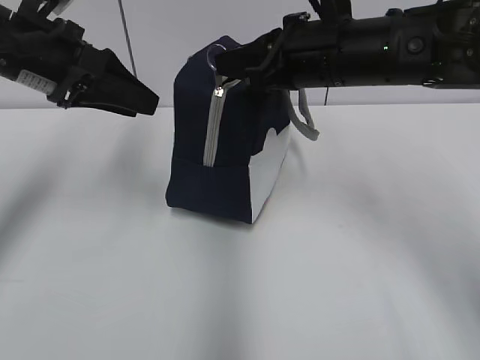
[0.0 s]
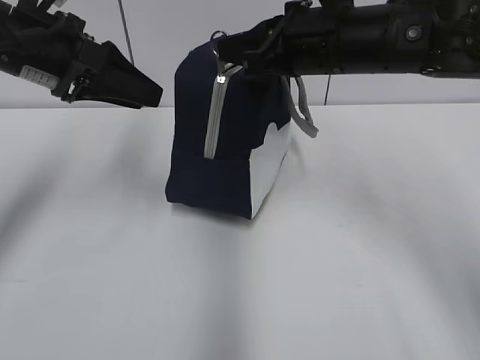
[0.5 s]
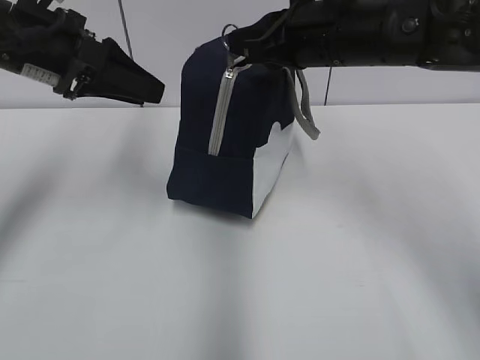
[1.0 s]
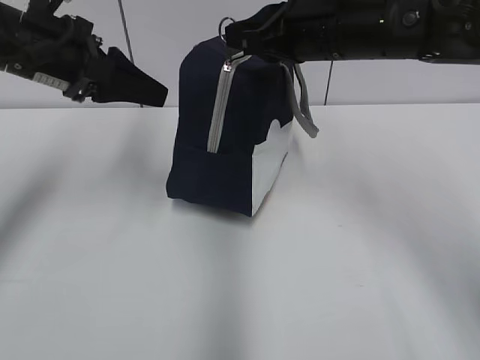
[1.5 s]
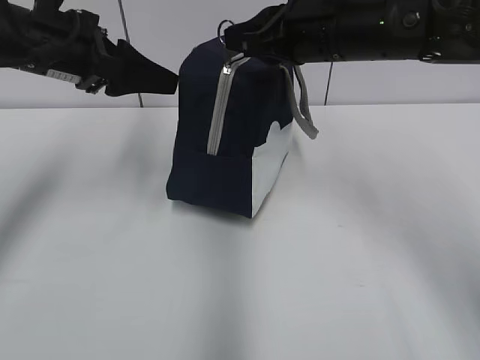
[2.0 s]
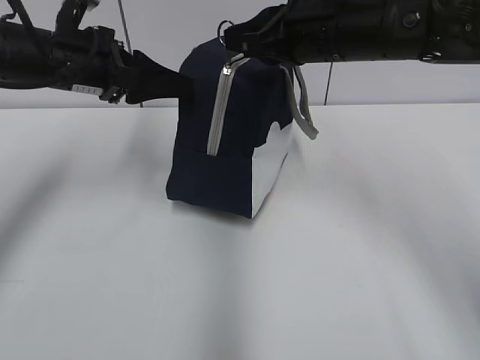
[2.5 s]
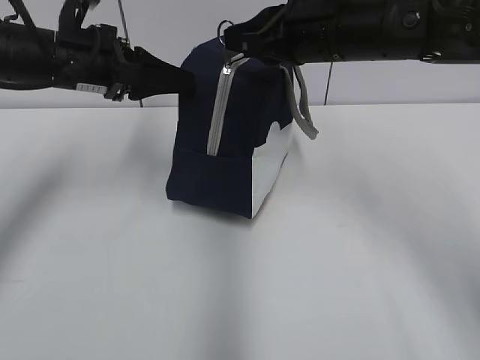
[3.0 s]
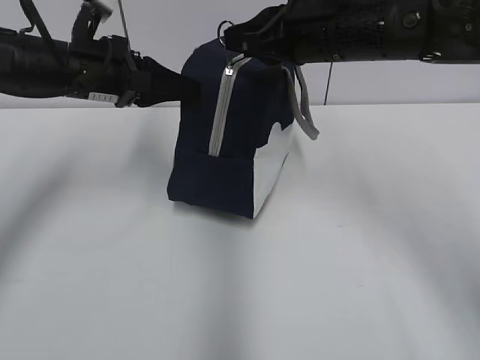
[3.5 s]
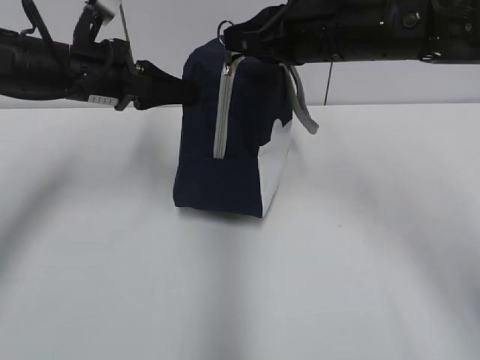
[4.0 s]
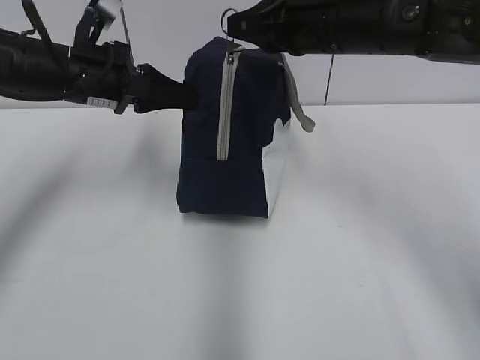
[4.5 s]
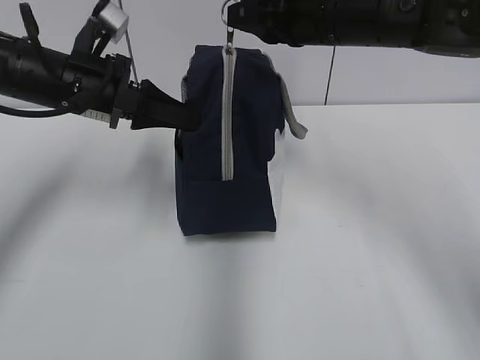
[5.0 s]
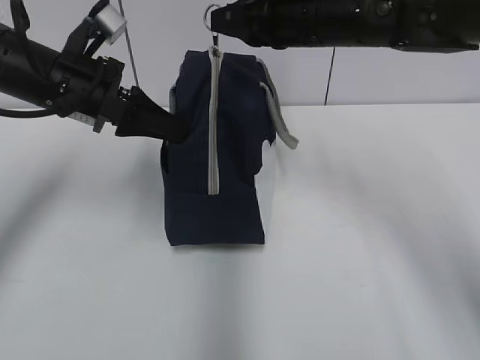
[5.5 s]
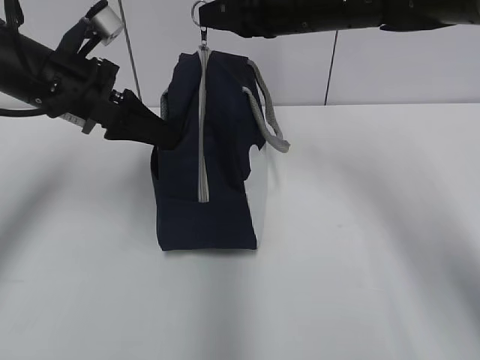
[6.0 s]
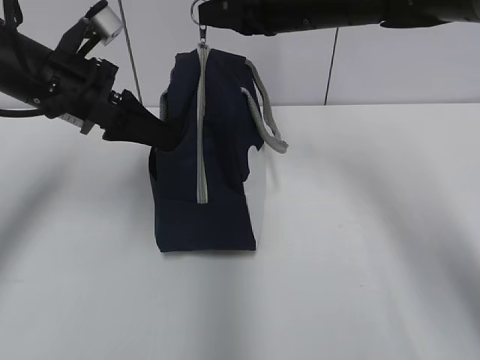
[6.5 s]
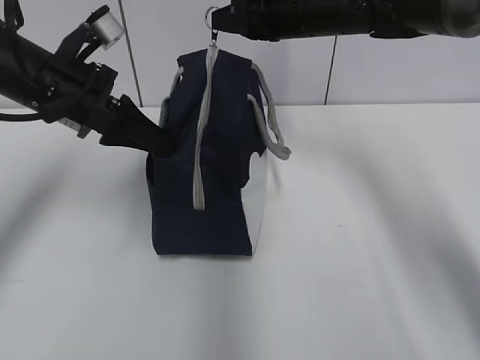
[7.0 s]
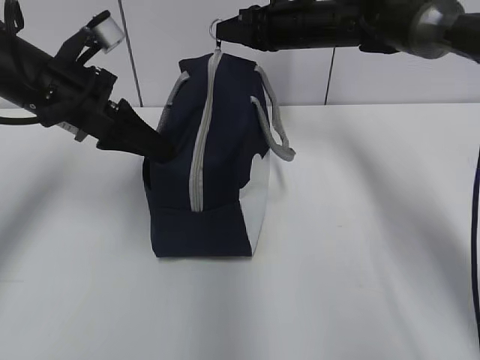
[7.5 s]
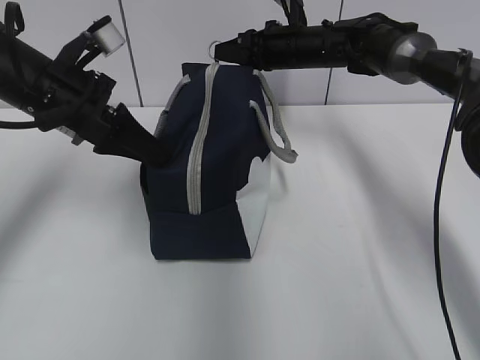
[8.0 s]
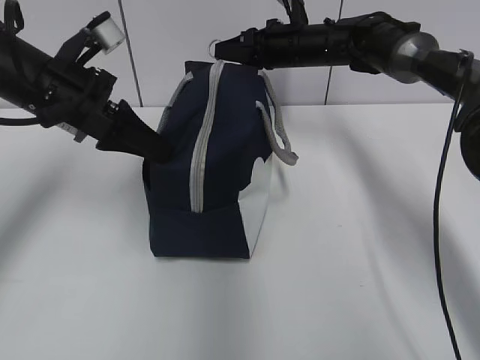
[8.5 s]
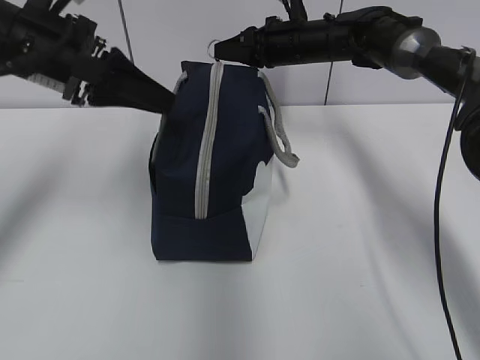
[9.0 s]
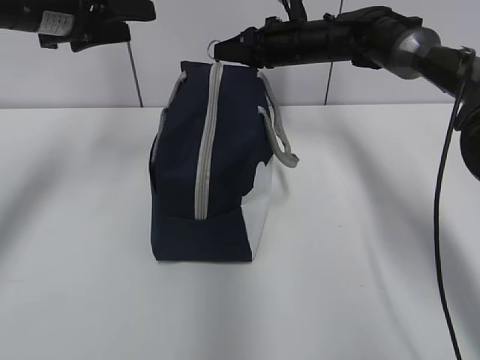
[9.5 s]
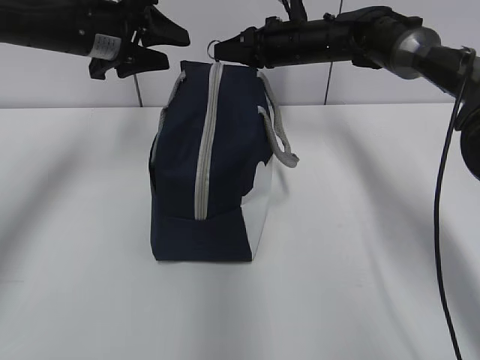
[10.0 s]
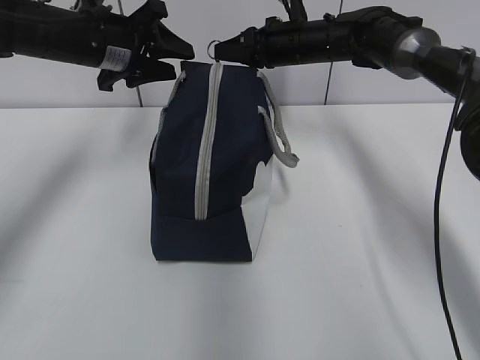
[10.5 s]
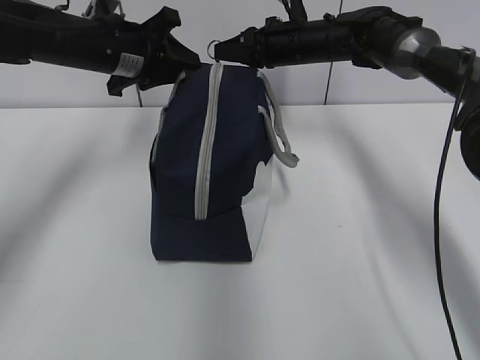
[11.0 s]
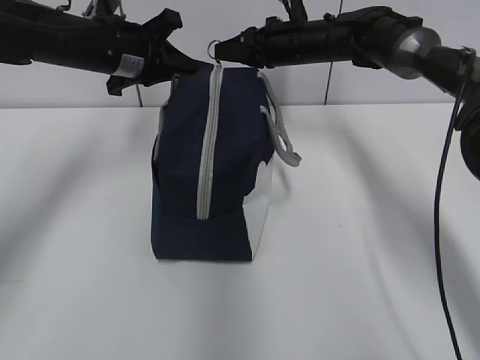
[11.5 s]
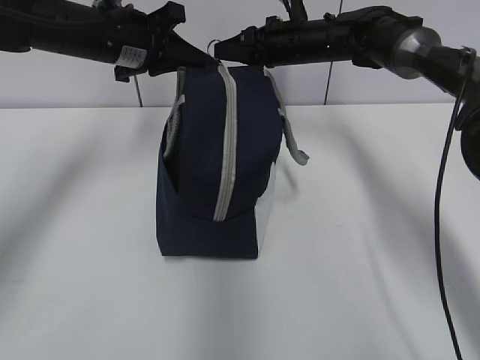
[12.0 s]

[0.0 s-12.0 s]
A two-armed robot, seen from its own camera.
Step, 0.0 to 3.5 s: Grab the lunch bag with your left hand.
0.0 to 2.0 s: The grippers make only small movements.
2.0 to 4.0 s: The left gripper ends up about 5 cm from where it was, and closes.
4.0 to 6.0 s: The right gripper moves forward, approximately 5 cm.
6.0 to 8.0 s: The right gripper is displaced forward and downward by roughly 15 cm.
8.0 to 10.0 s: The left gripper goes about 10 cm forward, and opens its fingers.
10.0 to 12.0 s: The left gripper closes up.

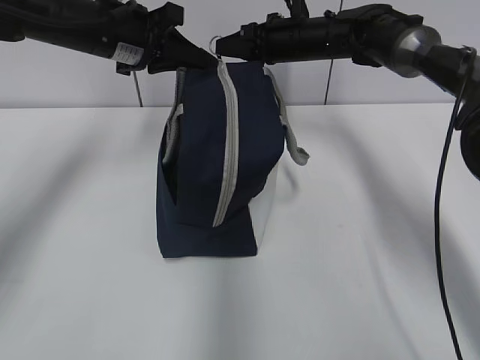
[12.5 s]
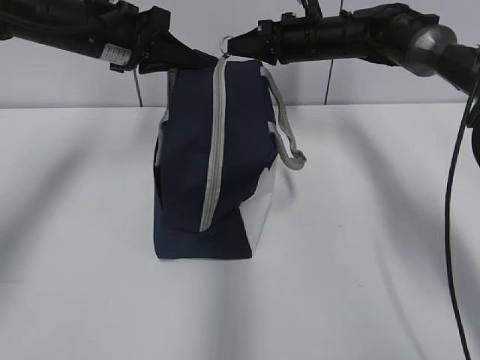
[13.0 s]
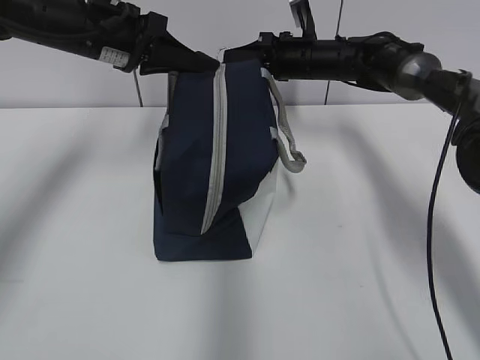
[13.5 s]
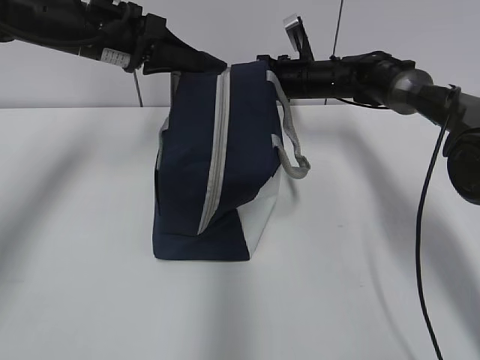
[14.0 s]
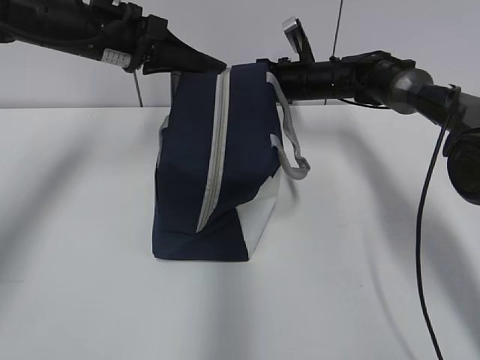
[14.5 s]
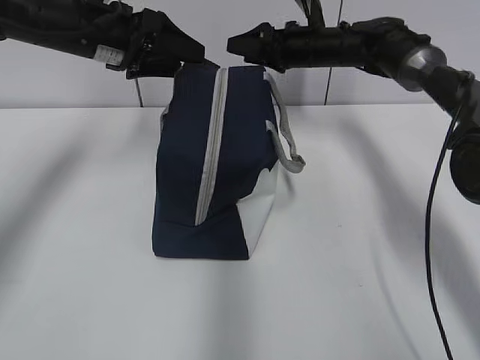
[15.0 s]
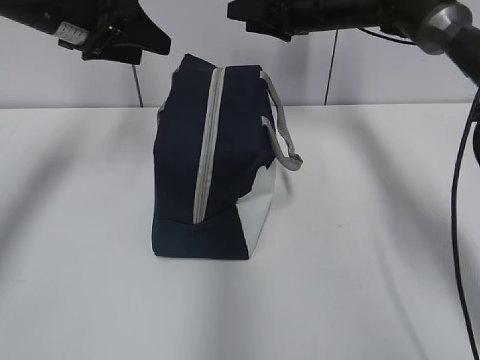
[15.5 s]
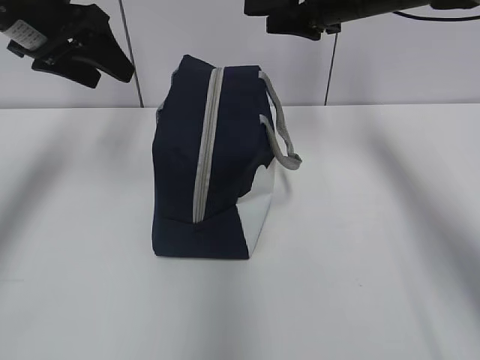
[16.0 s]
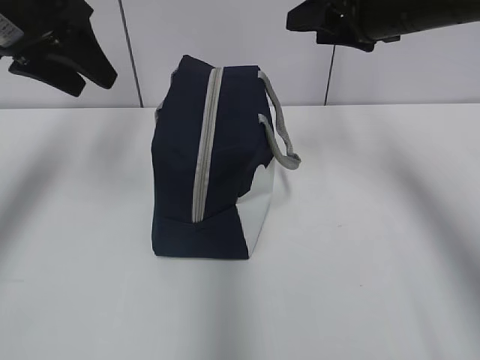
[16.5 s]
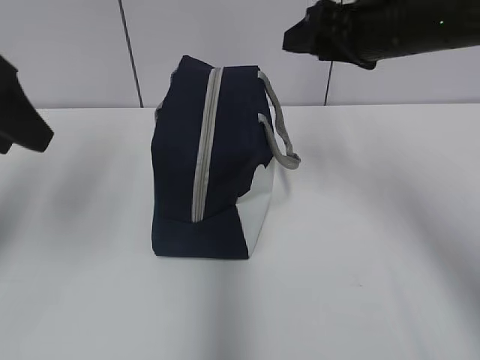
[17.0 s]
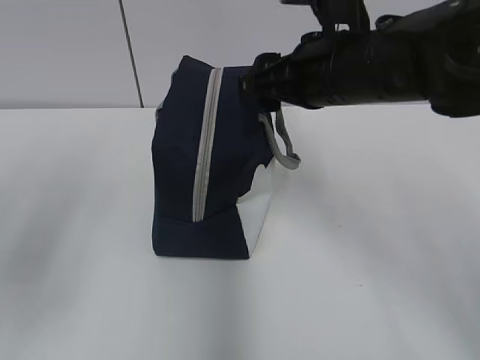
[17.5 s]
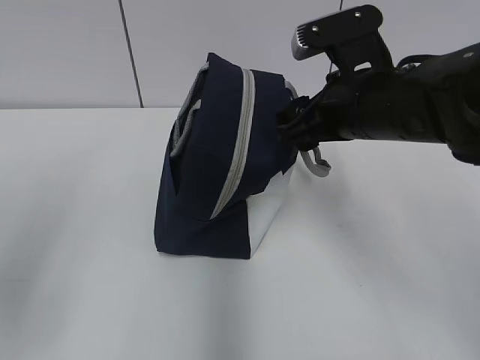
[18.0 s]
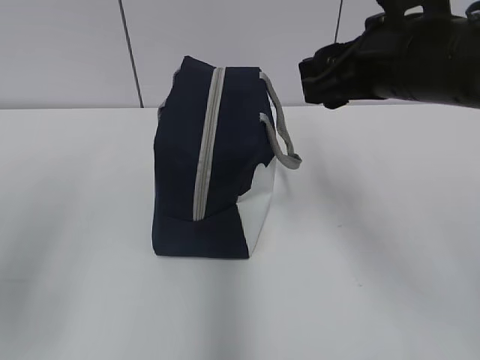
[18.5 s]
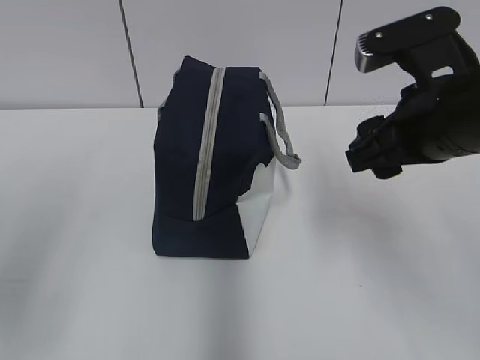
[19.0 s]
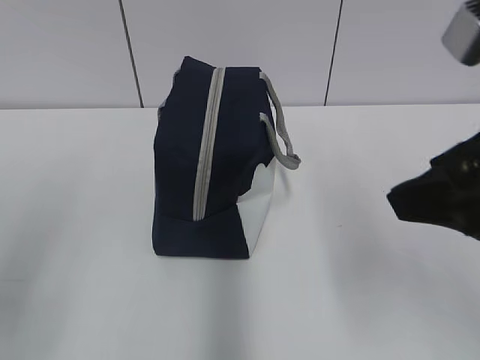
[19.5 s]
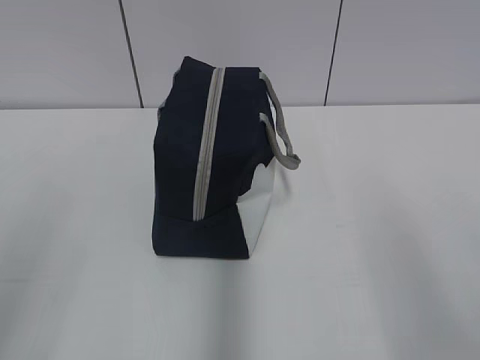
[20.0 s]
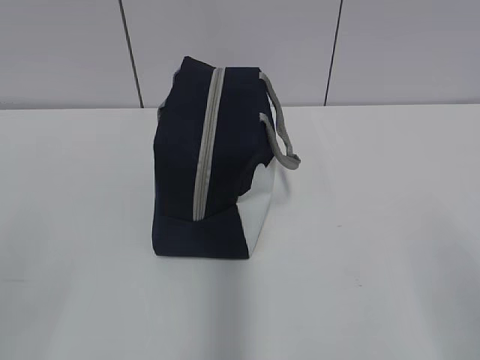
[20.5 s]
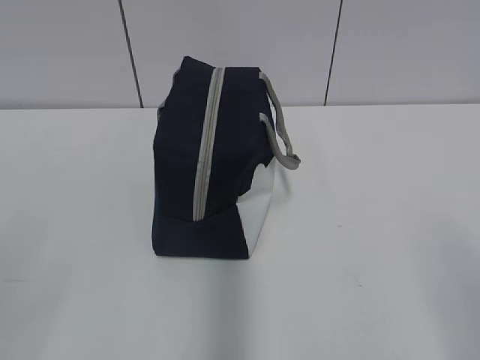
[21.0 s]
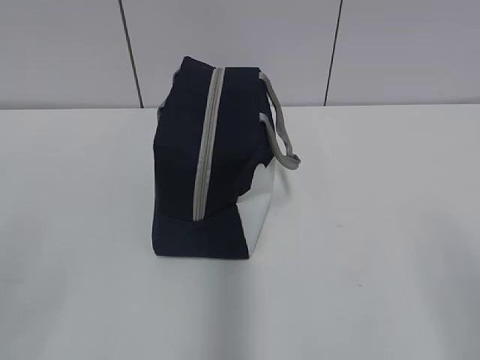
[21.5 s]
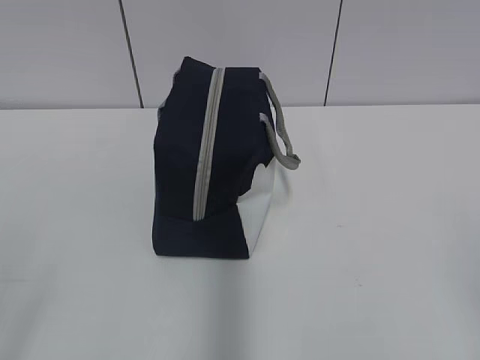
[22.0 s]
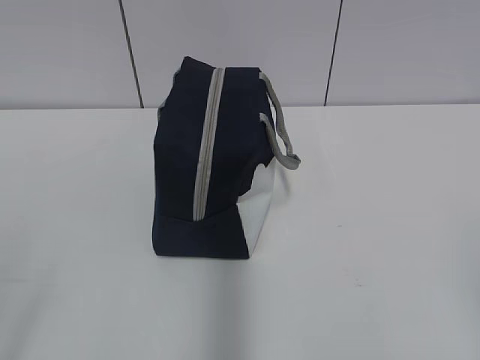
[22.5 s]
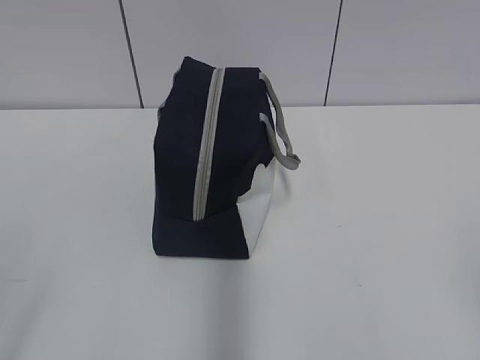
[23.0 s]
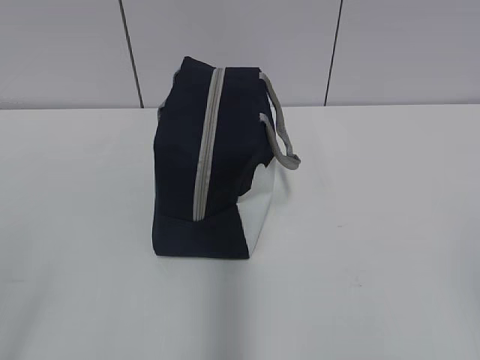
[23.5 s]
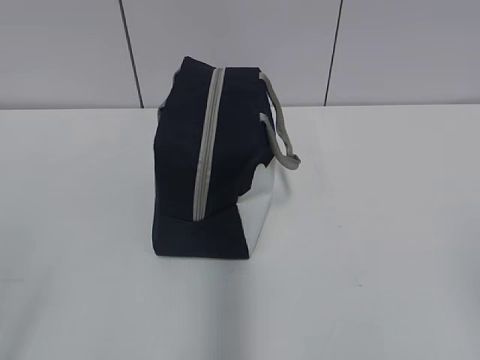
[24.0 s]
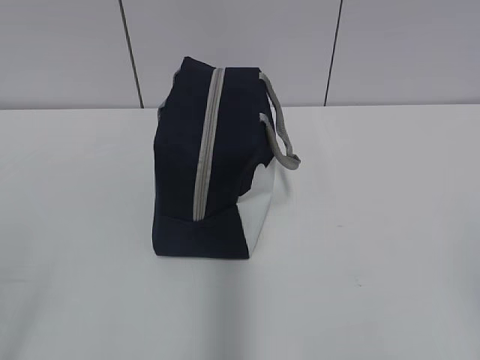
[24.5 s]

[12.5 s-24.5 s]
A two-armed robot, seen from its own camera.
Step, 12.5 to 14.5 s: Pull the zipper with your right hand.
12.5 to 14.5 s: The right gripper shifts approximately 5 cm downward.
14.5 to 16.5 s: The left gripper travels backward, upward and to the left by about 10 cm, and opens, while the right gripper moves upward and backward, some 20 cm, and opens its fingers.
16.5 to 18.5 s: The left gripper goes about 25 cm backward; the right gripper is displaced backward by about 10 cm.
18.5 to 20.5 s: The left gripper shifts about 10 cm backward, while the right gripper moves backward and to the right, approximately 30 cm.
22.5 to 24.5 s: Both grippers stay about where they are.

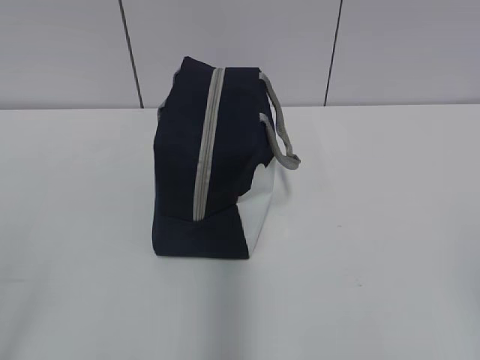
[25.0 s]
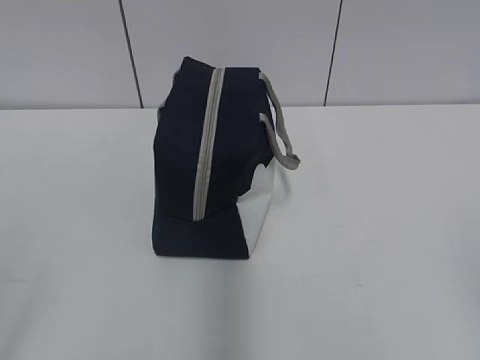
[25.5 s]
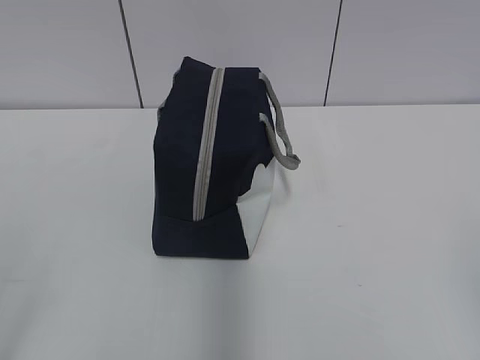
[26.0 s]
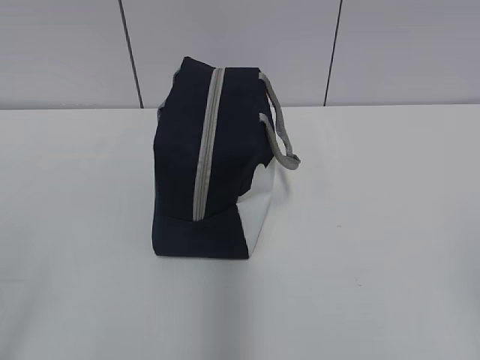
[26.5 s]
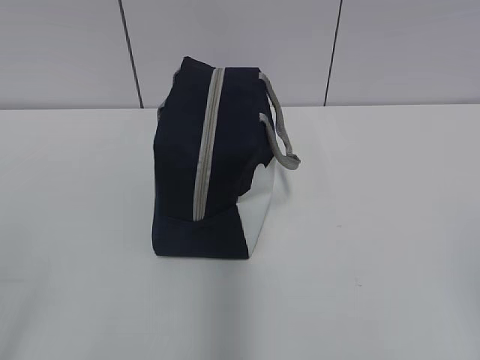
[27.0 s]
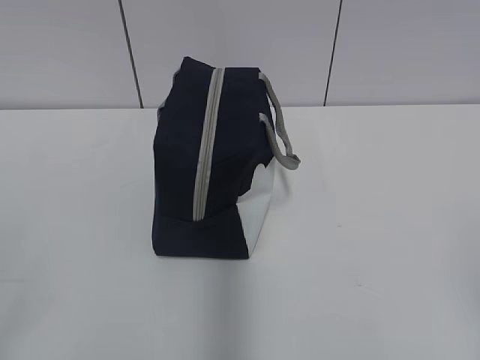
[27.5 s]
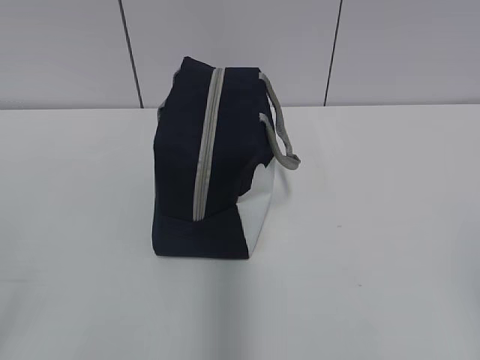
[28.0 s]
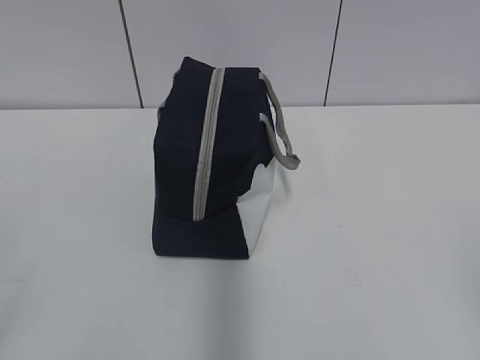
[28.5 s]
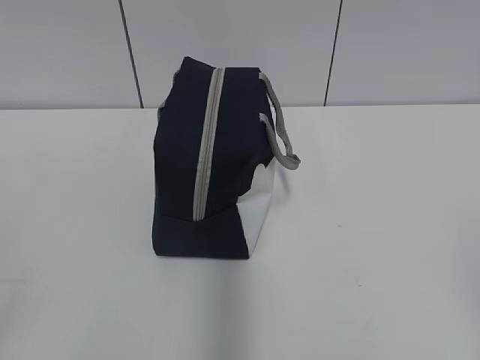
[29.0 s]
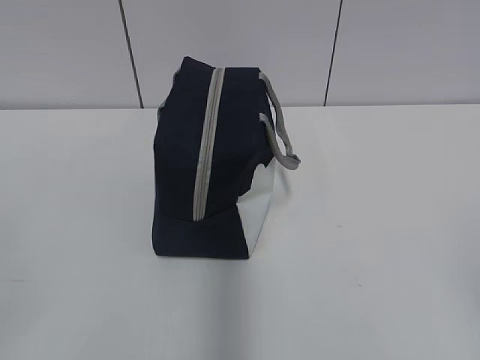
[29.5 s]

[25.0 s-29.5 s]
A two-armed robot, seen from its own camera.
25.0 to 27.0 s: Both grippers stay put.
